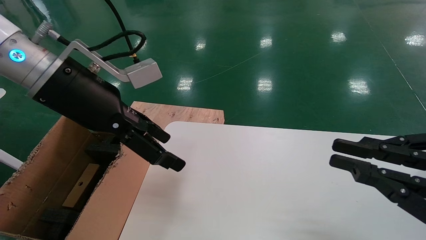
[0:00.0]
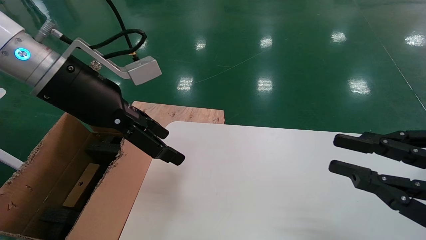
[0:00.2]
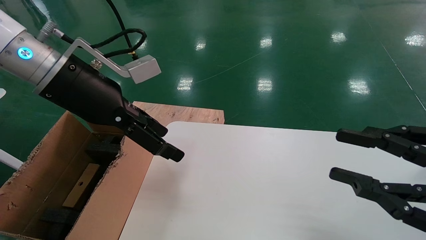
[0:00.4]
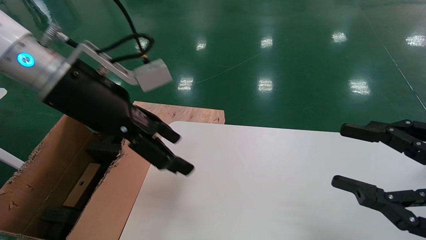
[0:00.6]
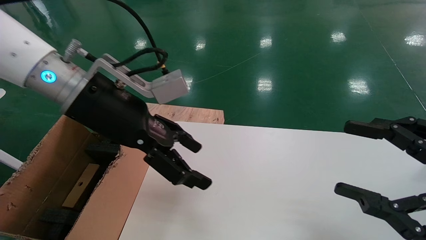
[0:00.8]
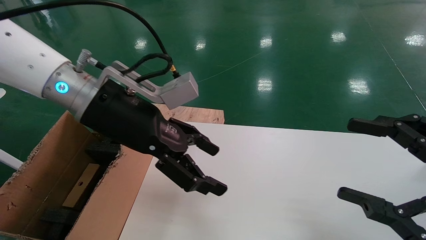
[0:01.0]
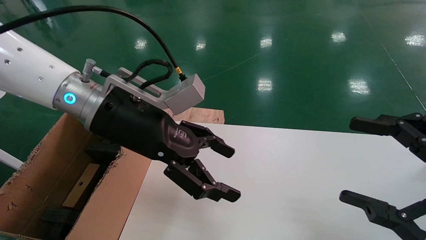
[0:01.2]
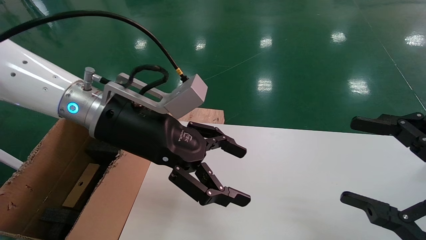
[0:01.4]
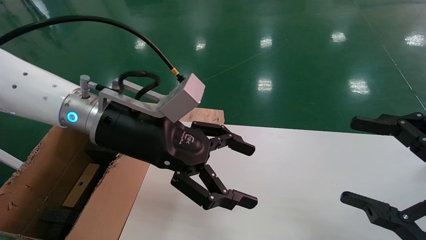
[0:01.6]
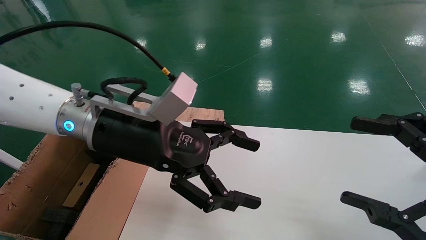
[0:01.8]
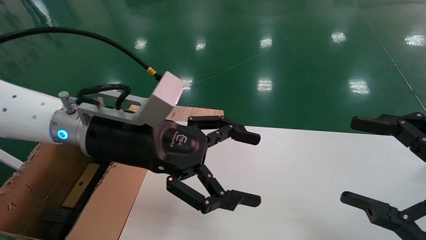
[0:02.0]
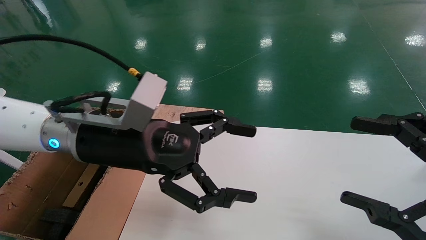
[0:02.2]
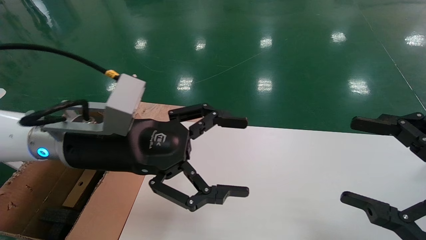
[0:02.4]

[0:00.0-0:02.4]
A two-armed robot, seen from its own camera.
Task of the whole recording: place the small box on the table into the large box on the left.
0:00.0 to 0:01.2: The right gripper opens up. Meanwhile the left gripper travels to the right by roughly 5 cm.
0:01.2 to 0:02.4: The left gripper ends up some 5 cm from where it was.
